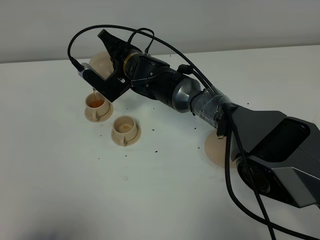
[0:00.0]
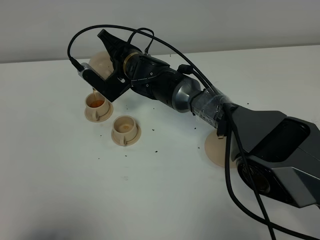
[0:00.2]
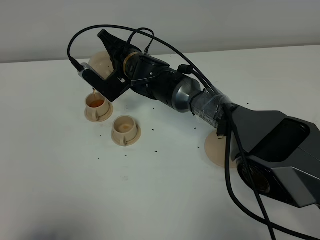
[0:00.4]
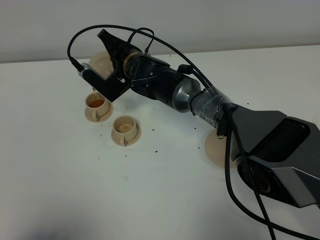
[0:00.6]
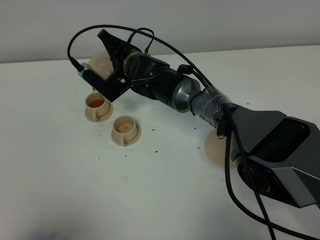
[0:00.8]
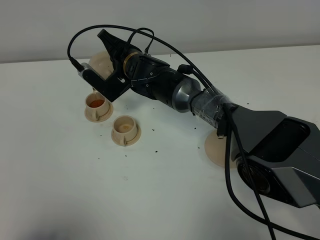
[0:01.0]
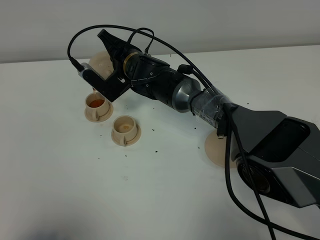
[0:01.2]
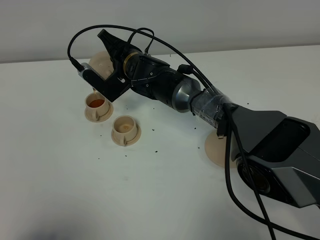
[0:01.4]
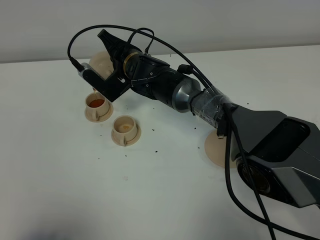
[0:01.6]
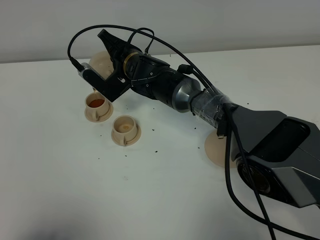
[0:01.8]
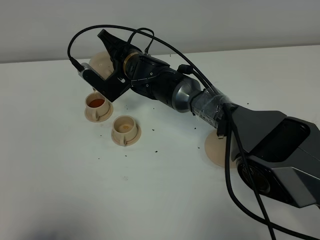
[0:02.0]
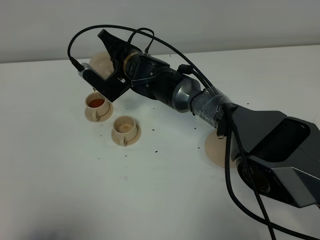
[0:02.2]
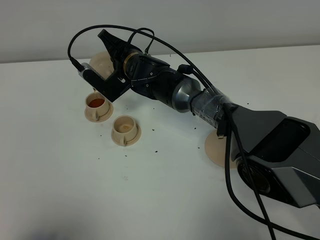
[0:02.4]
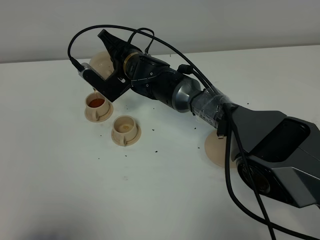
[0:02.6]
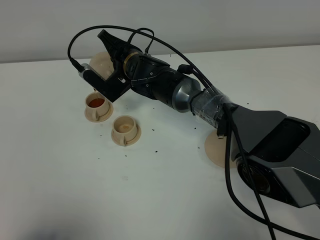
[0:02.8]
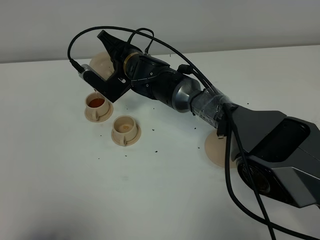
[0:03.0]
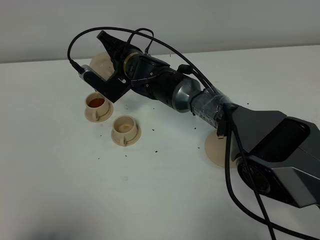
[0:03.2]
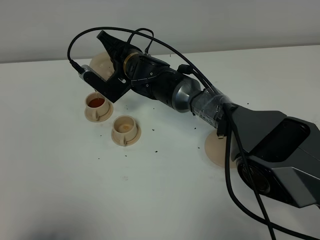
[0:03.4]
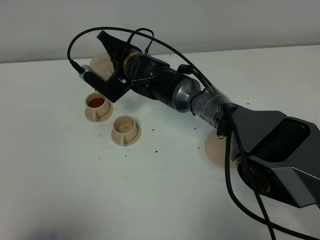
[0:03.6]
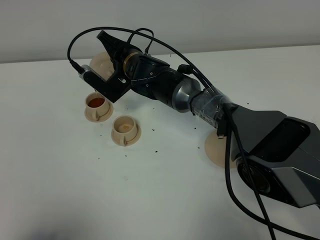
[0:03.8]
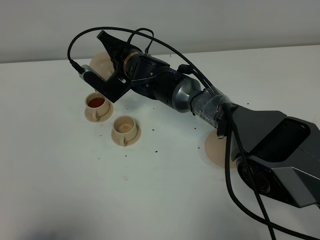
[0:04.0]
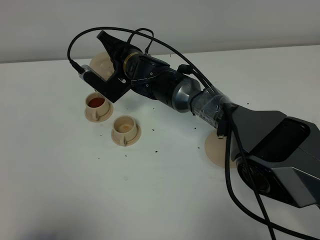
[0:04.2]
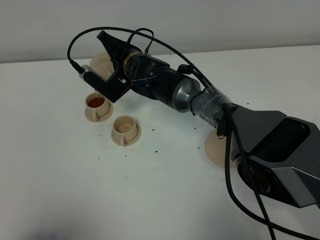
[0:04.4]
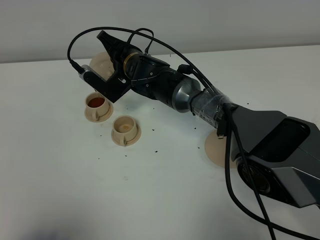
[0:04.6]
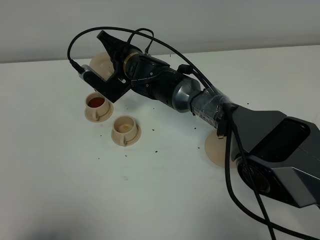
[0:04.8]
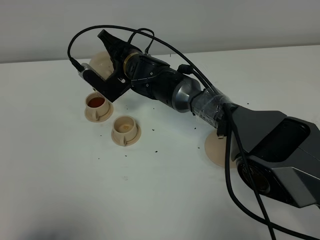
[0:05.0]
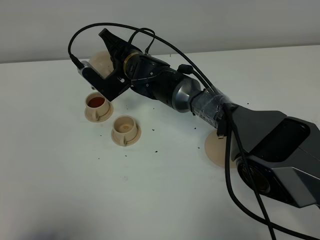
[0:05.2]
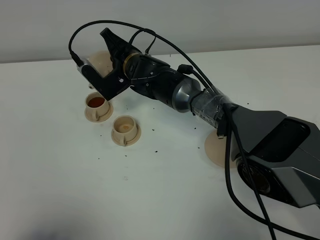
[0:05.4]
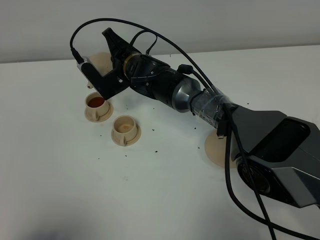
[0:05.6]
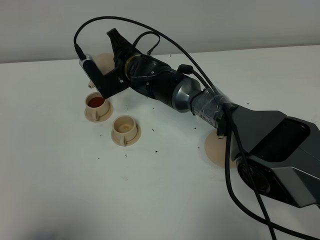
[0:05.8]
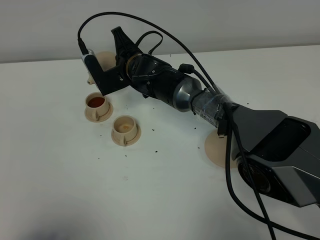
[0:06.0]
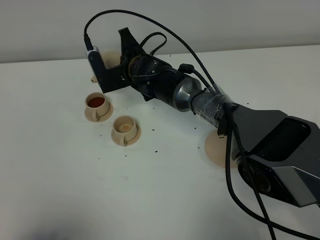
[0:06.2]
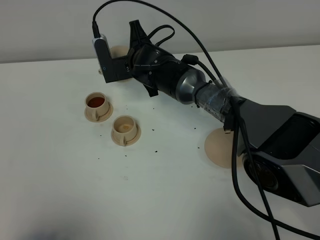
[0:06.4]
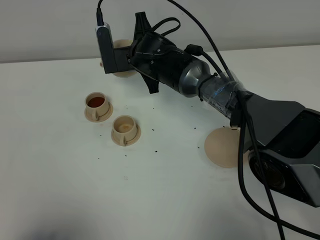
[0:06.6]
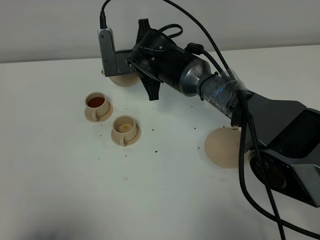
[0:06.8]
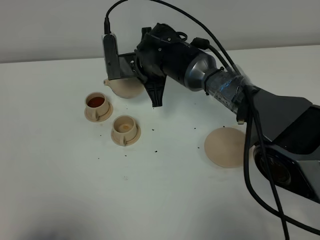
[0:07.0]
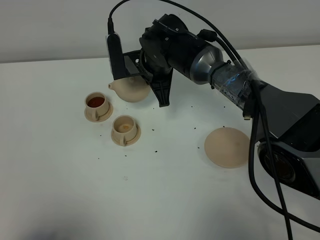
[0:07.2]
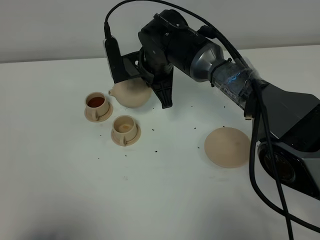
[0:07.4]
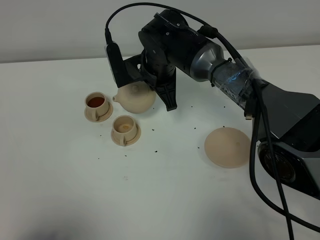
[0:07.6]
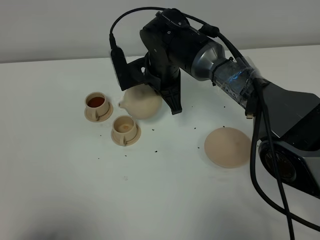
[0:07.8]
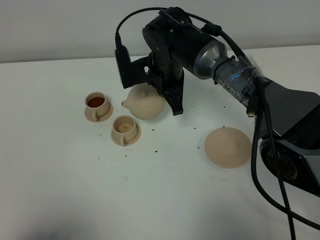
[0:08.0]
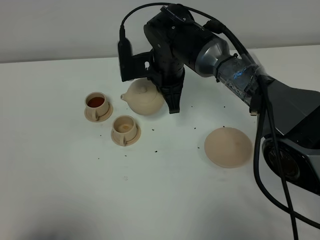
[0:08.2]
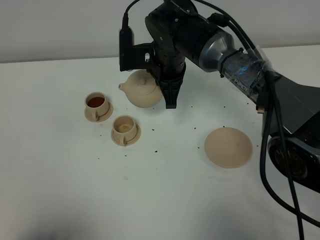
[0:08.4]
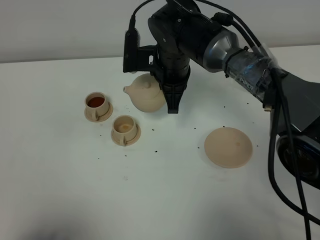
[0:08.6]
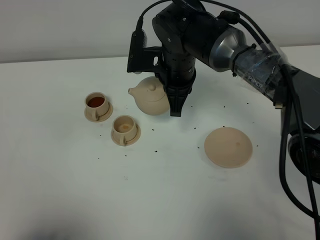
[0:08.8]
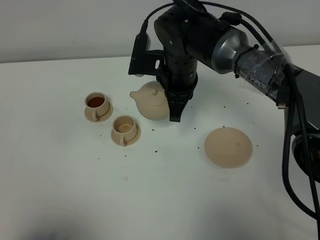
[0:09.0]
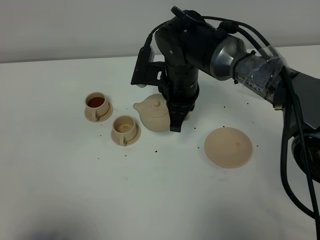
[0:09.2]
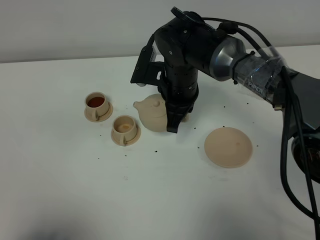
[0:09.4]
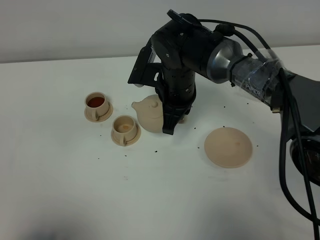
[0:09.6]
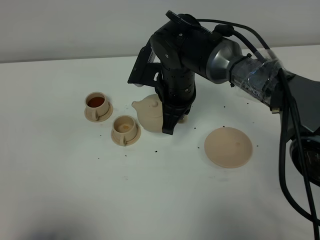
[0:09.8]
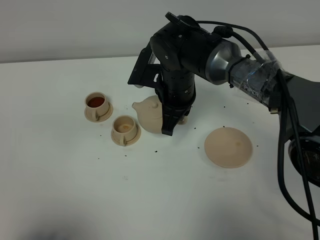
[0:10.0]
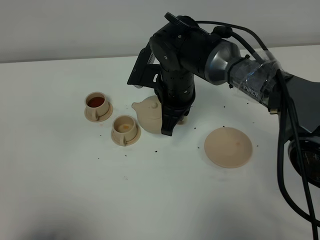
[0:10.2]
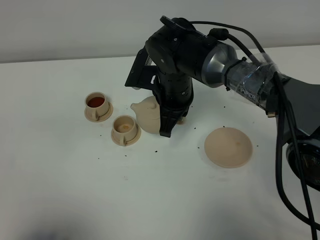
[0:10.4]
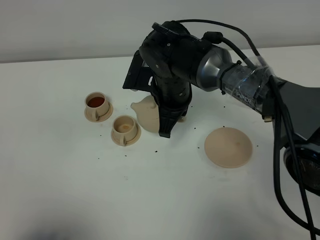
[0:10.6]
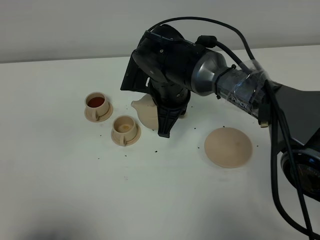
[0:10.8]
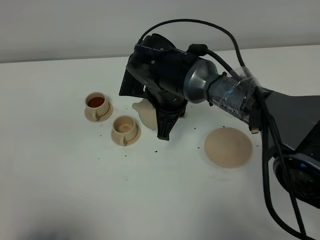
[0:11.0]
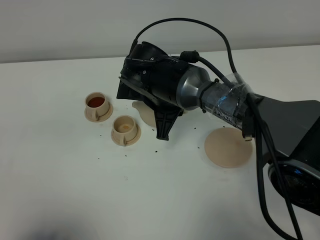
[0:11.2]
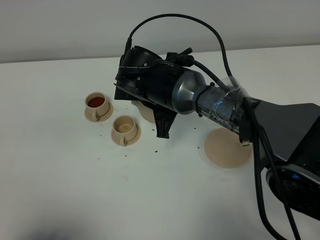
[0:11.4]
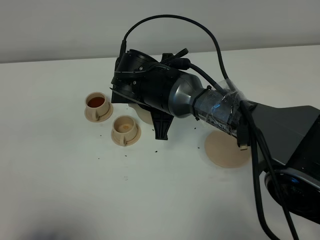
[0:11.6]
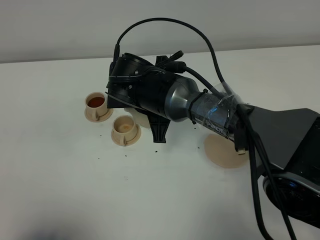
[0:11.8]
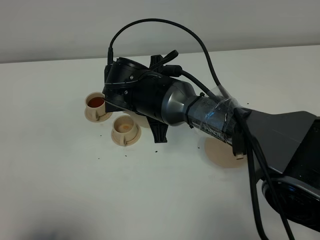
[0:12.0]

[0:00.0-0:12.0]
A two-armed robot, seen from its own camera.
Task of the whole recording: grasp the brown teapot and pour the tea into the two brown teacups one by one, put the brown teapot back in its original place.
0:00.0 to 0:04.4: Both grippers stay put.
0:06.0 to 0:07.6: The right gripper is displaced to the right by some 5 cm.
0:09.0 to 0:10.4: The grippers move only a little.
0:10.4 to 0:12.0: The right gripper shifts by approximately 5 cm.

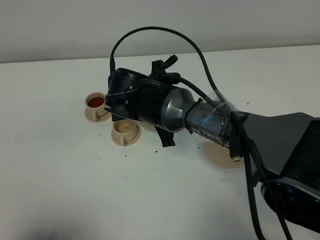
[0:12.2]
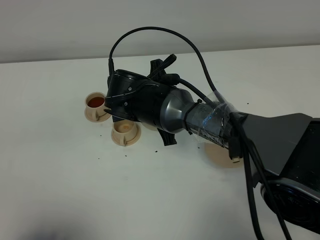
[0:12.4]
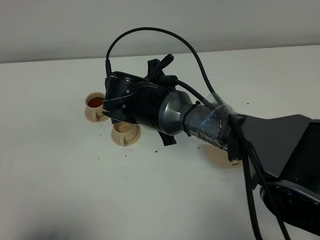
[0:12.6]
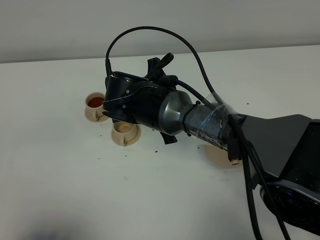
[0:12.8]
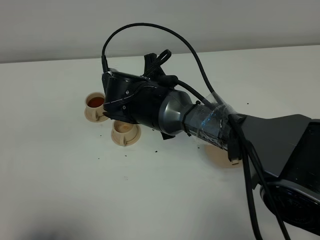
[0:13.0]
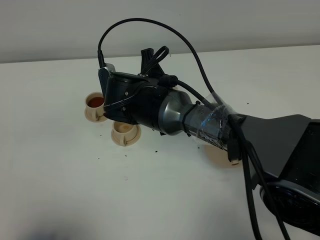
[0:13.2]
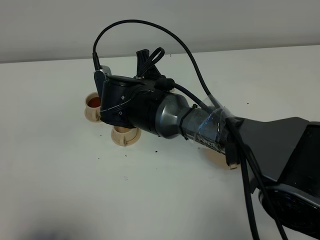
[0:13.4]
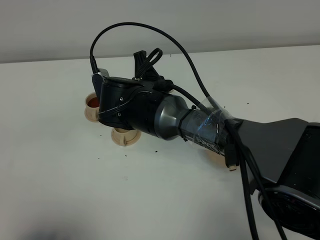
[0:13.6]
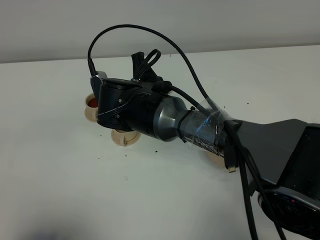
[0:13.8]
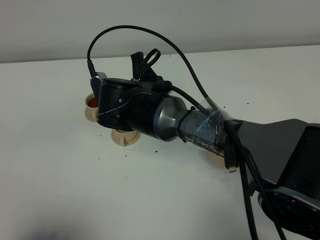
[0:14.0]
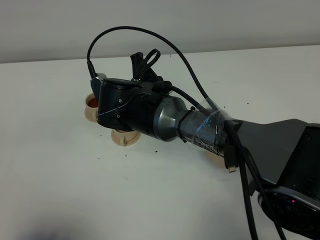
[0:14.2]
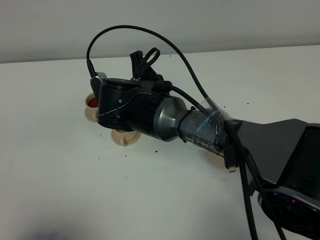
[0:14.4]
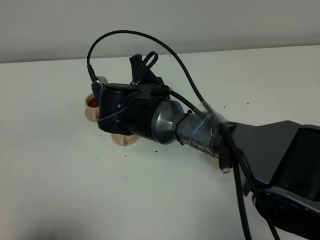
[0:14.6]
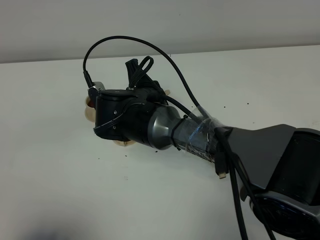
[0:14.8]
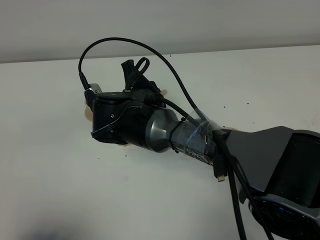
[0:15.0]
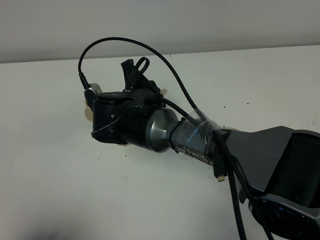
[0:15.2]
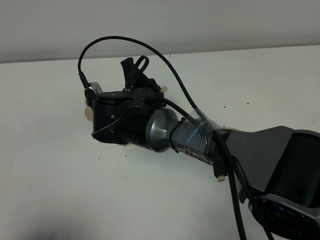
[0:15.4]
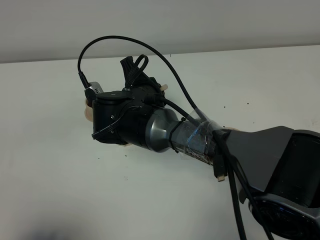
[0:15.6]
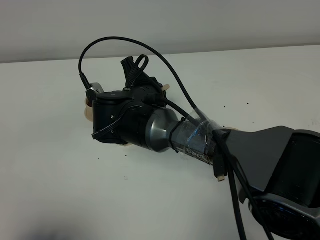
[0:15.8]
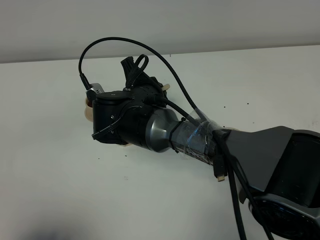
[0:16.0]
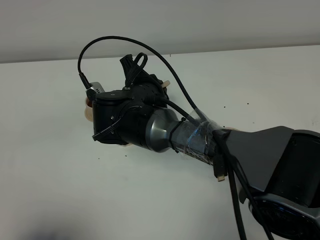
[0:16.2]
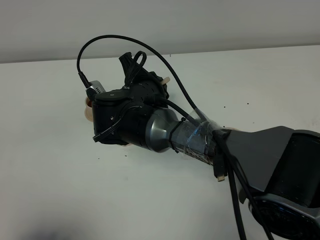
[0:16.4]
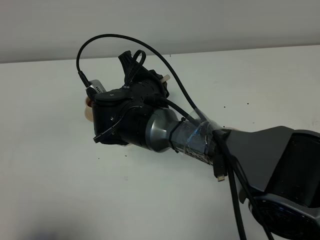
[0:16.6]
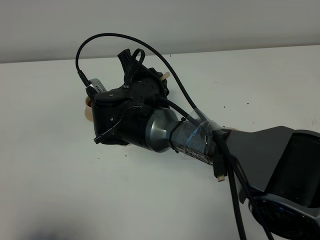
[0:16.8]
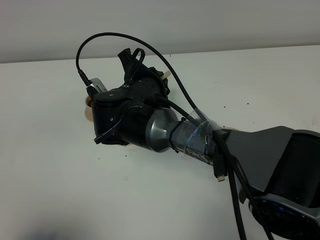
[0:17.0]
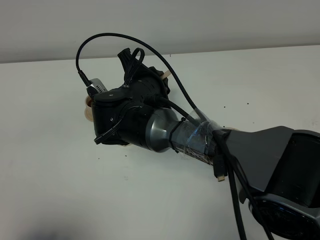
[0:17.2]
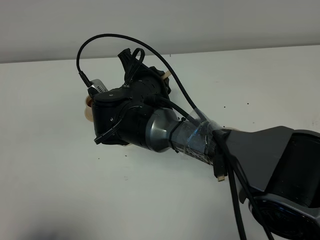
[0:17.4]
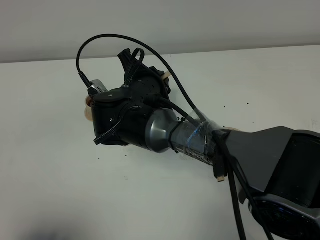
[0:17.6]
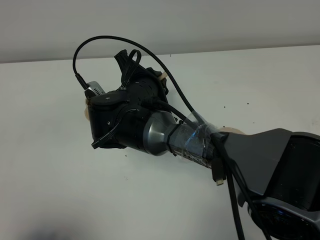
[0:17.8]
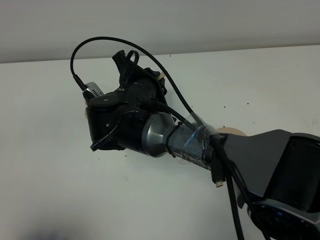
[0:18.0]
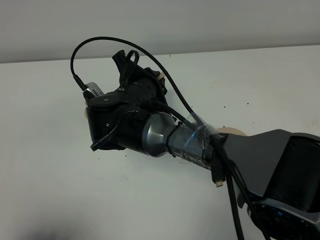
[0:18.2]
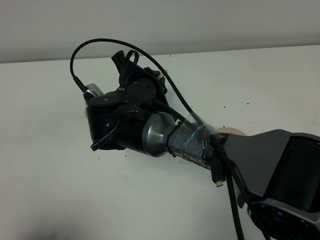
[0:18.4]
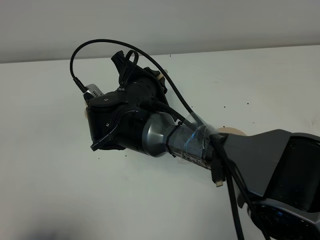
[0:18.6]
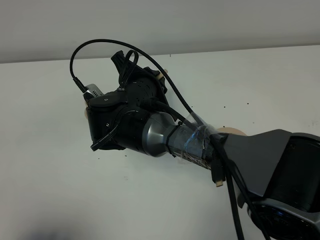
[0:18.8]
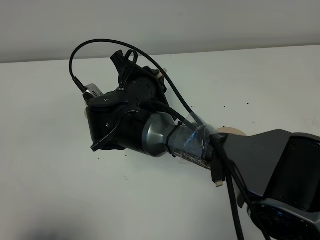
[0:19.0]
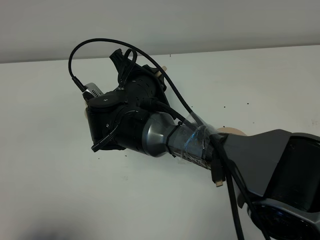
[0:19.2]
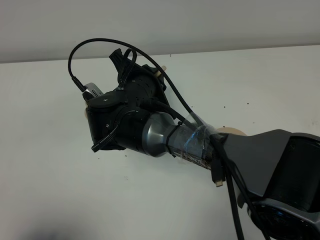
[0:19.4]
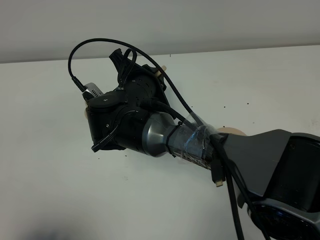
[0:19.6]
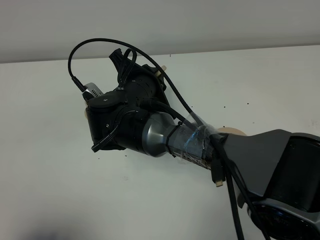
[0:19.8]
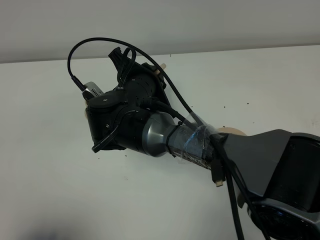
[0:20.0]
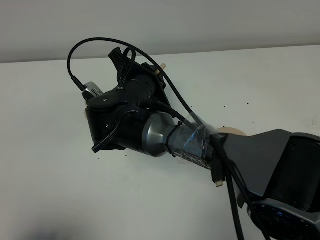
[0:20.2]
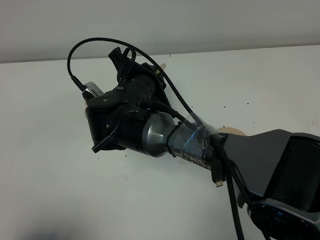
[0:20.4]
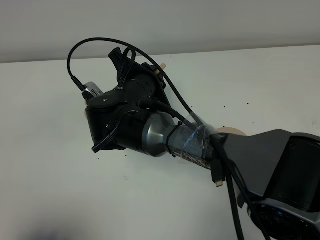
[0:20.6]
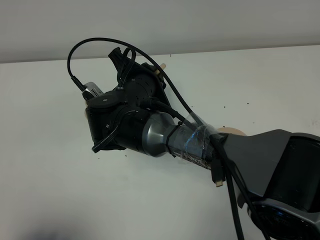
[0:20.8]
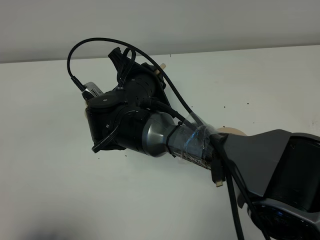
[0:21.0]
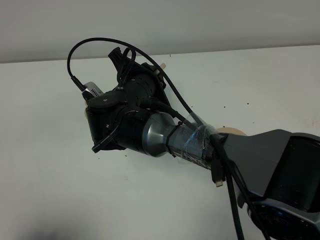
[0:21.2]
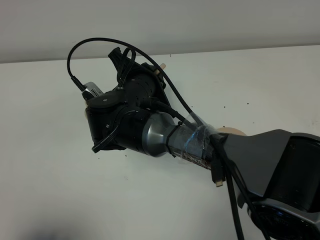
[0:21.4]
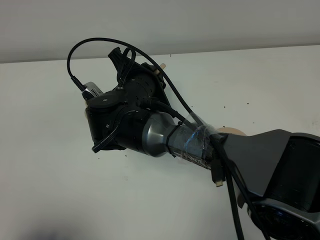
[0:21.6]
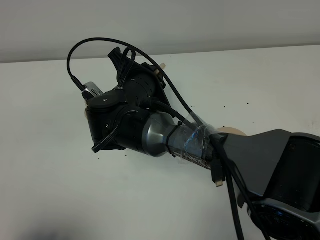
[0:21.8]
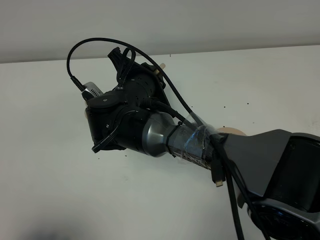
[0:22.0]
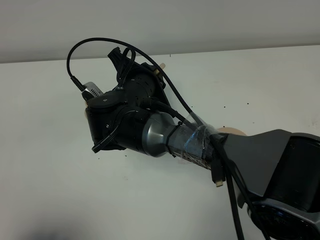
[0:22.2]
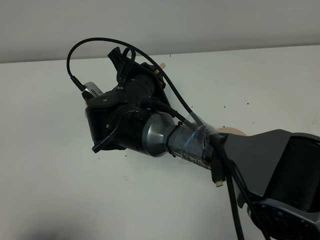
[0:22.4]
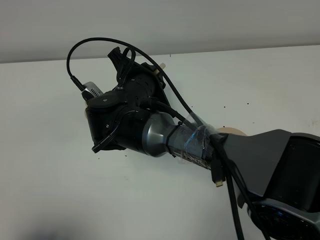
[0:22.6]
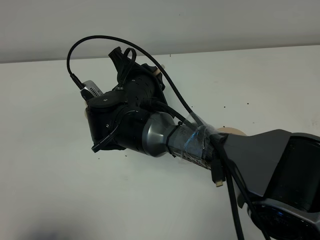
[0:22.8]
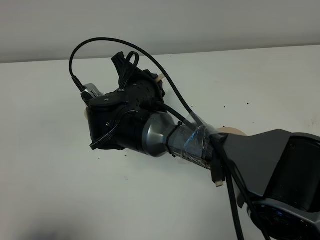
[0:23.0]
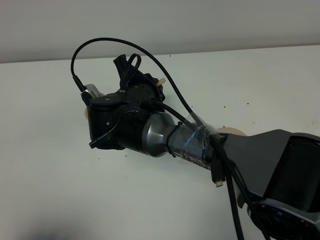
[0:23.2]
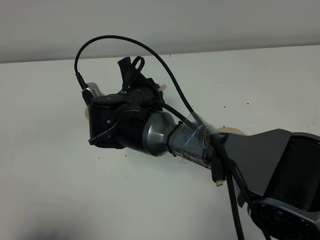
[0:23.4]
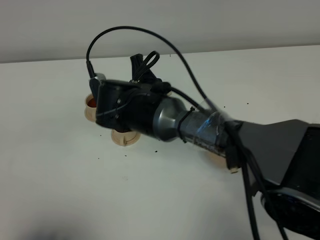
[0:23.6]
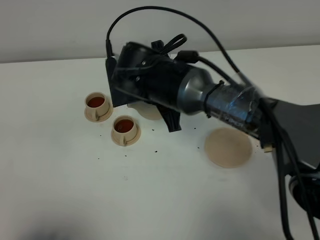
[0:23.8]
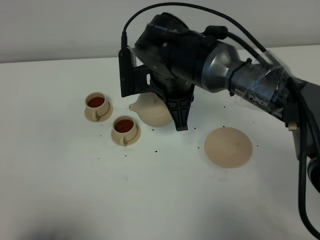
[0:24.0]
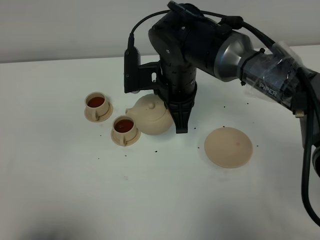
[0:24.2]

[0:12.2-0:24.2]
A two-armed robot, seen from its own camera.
Task of the whole recording: grasp the brown teapot and pour the tea into the two brown teacups one by one, put the brown teapot back in its original place.
Step, 0:12.2 to 0:23.8: Pour tea into the teacup with the right gripper.
0:12.2 to 0:13.8: The grippers stay close to where they were, moving slightly.
0:13.8 to 0:16.6: The grippers stay close to where they were, moving slightly.
0:16.6 to 0:18.2: The grippers make only small movements.
0:18.2 to 0:22.6: Both grippers stay put.
0:22.6 to 0:24.2: The right gripper goes approximately 10 cm to the right.
